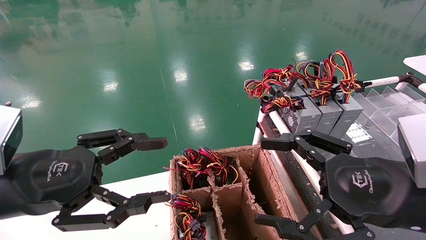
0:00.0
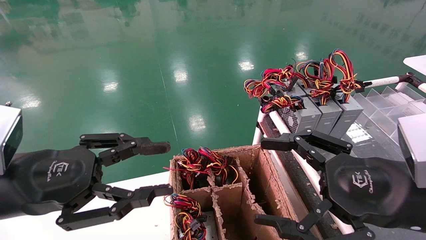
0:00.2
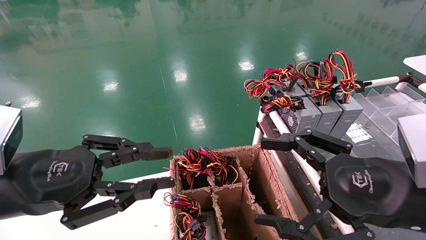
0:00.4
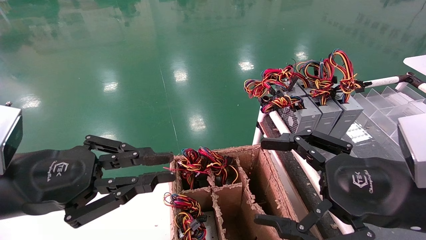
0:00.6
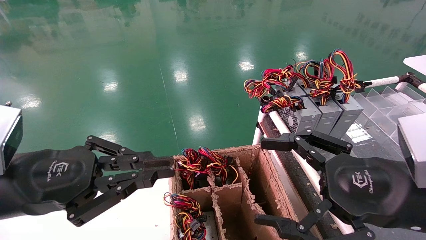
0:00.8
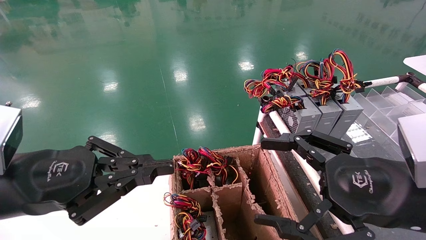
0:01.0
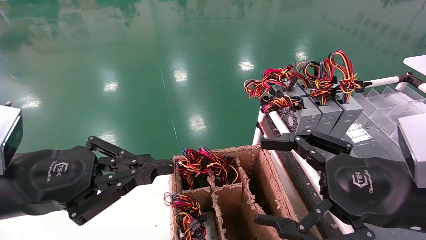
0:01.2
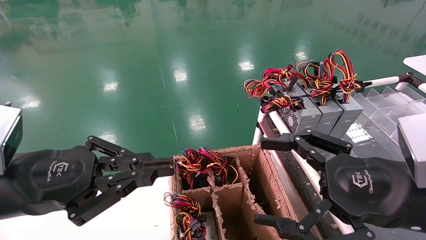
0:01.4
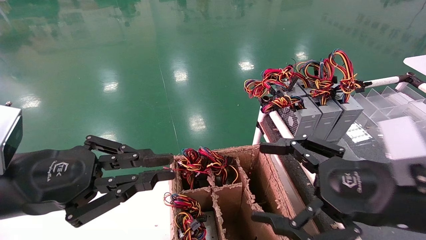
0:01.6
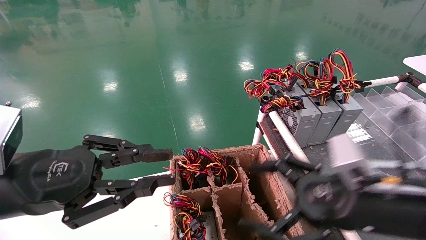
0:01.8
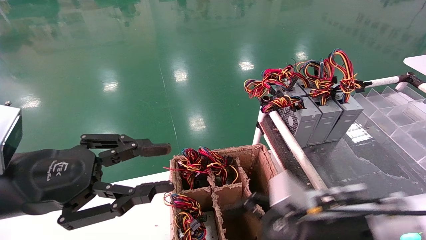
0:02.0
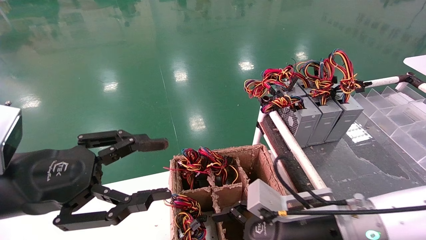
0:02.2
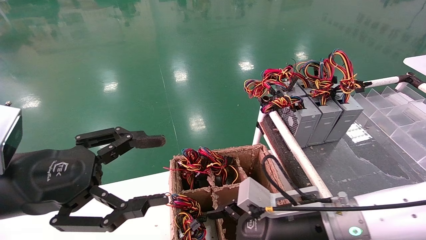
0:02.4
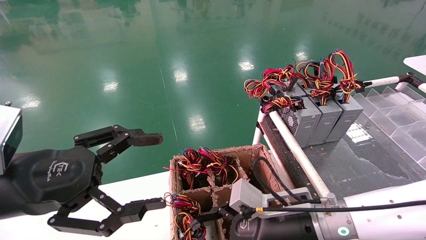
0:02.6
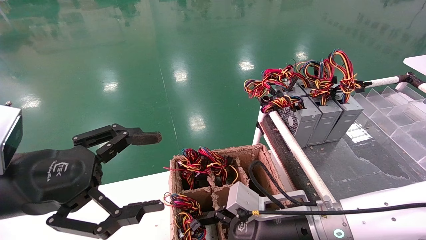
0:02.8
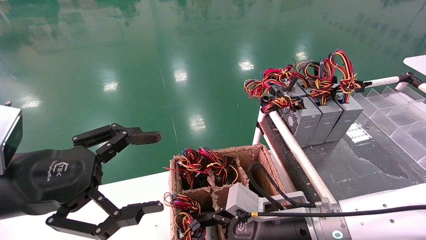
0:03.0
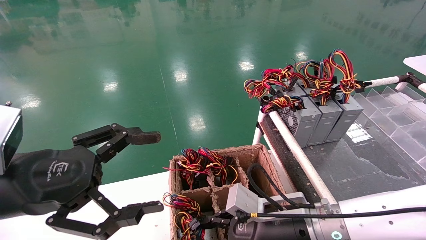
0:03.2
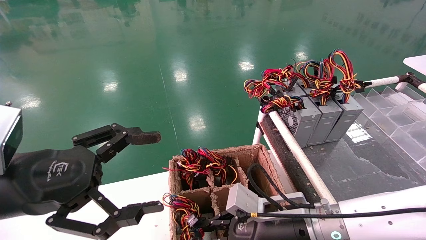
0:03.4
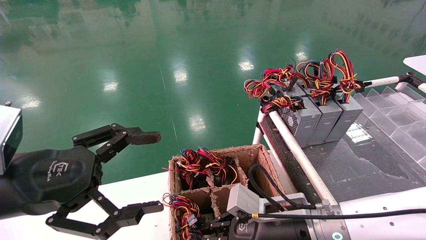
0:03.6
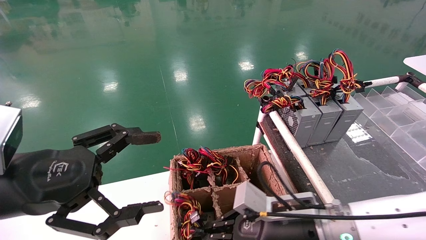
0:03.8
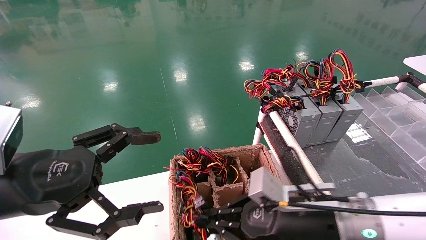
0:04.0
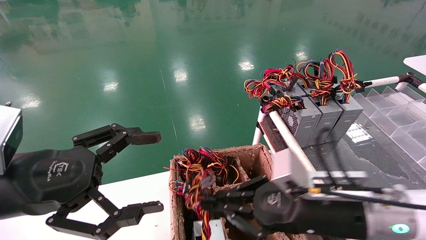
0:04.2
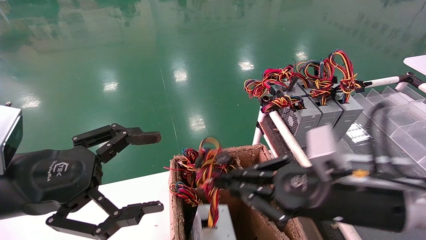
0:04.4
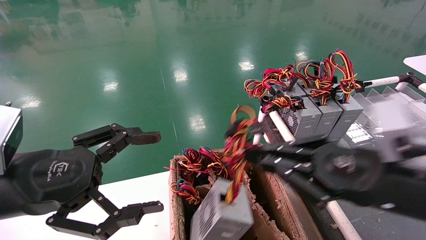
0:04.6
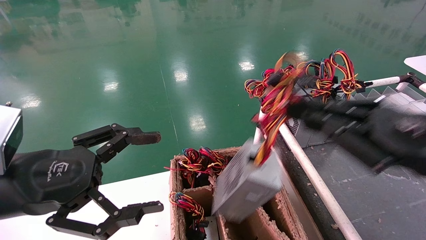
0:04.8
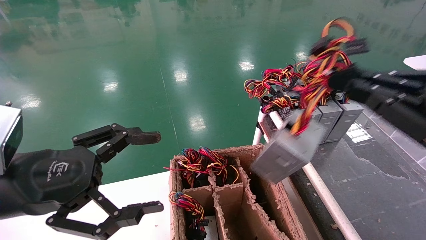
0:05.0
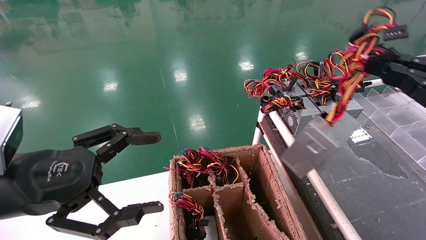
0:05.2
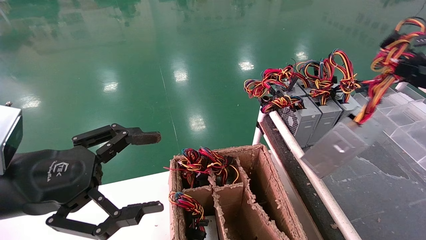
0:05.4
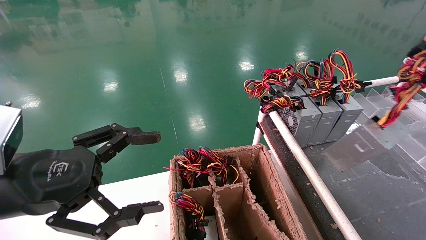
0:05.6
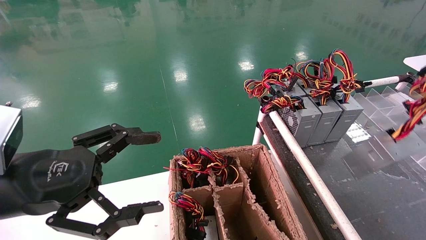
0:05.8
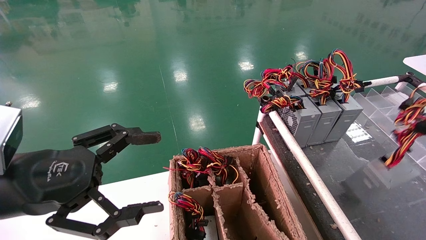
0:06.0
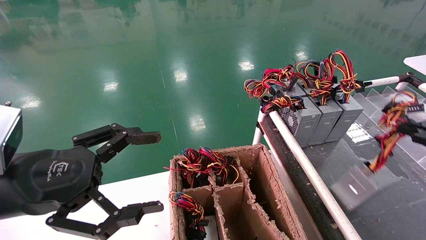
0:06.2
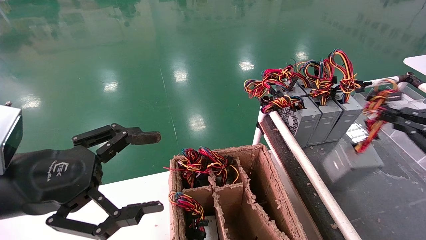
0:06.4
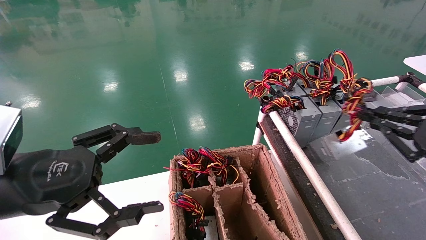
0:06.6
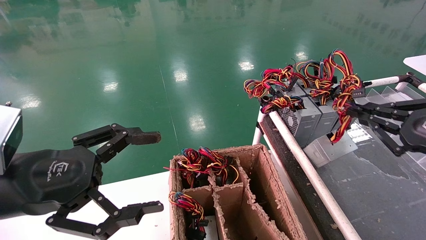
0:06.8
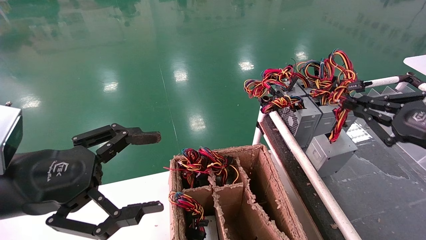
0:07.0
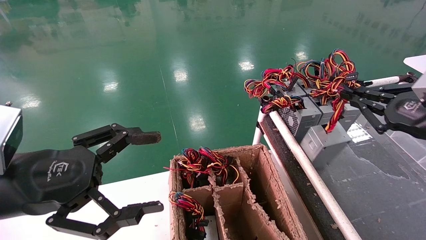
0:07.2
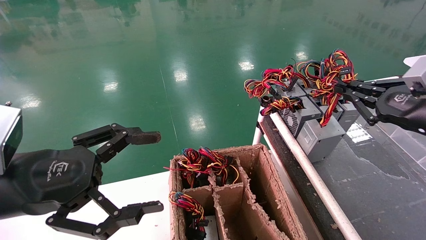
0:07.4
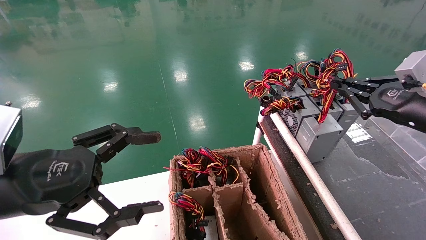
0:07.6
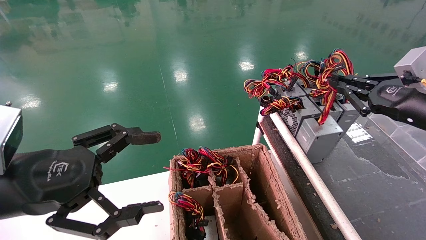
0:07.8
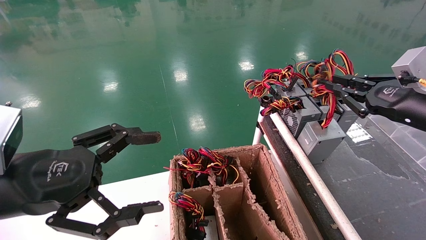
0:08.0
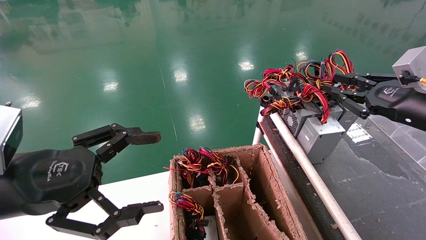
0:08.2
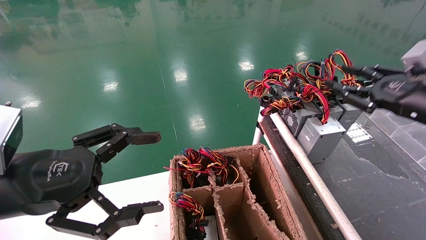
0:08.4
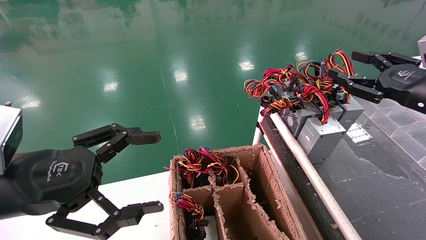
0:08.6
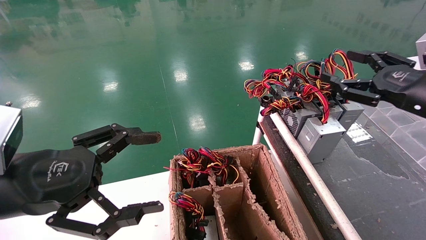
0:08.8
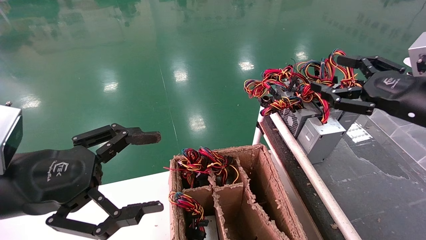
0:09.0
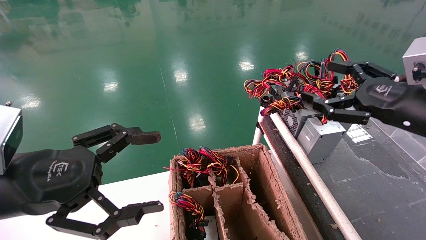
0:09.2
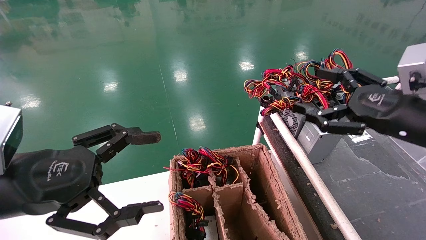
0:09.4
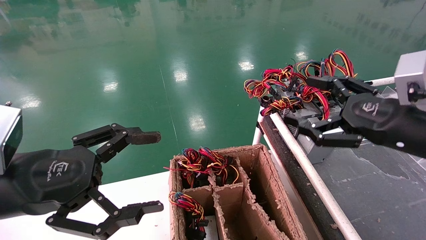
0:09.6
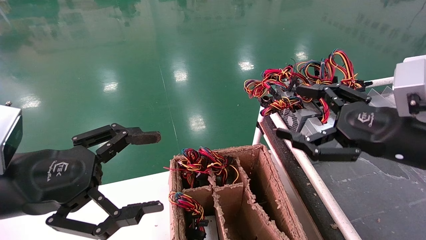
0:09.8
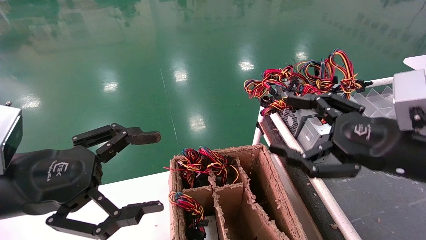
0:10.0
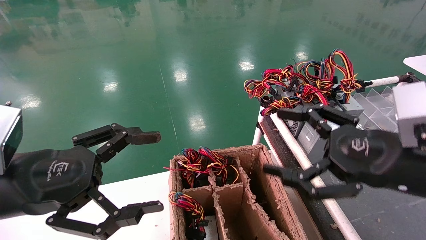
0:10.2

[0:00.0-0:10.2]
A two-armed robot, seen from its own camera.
Step, 0:01.2 to 0:03.8: Grab and lift the power supply from the large box.
Step, 0:04.0 to 0:07.8: Place the power supply on the operating table.
0:00.0 to 0:01.4: The left gripper closes up.
0:01.4 to 0:03.0: The left gripper opens. The right gripper is displaced downward, to the left and forward by some 20 cm, and closes up.
0:03.0 to 0:04.4: The right gripper goes about 10 cm upward and to the right, and closes.
0:04.4 to 0:05.8: The right gripper goes approximately 25 cm to the right.
0:05.8 to 0:07.2: The right gripper heads forward and to the left, covering some 15 cm.
0:07.2 to 0:08.8: The right gripper opens up.
0:08.8 to 0:10.2: The right gripper shifts approximately 10 cm to the left and backward.
